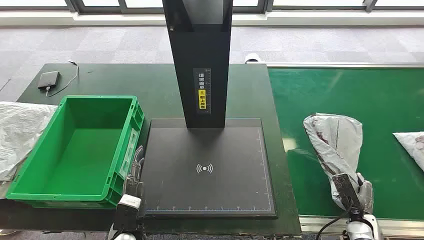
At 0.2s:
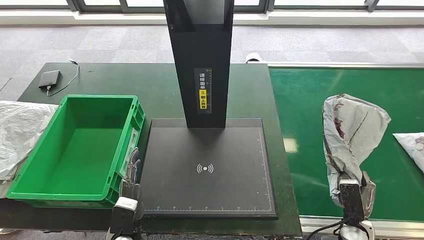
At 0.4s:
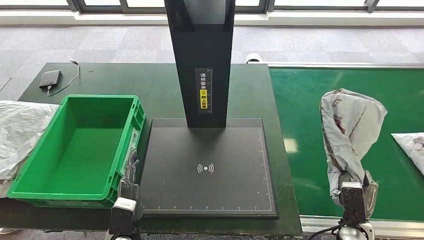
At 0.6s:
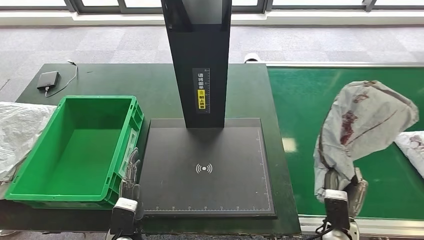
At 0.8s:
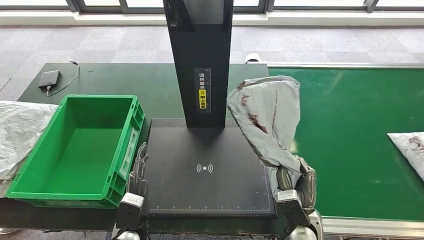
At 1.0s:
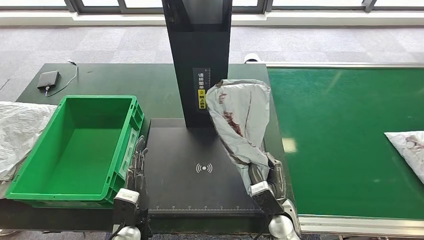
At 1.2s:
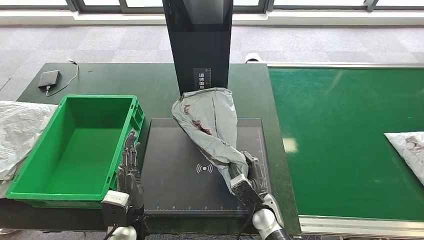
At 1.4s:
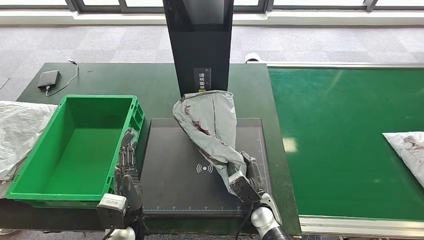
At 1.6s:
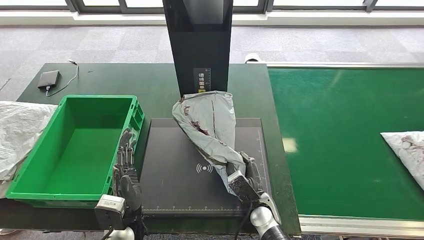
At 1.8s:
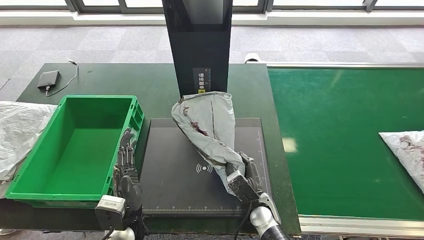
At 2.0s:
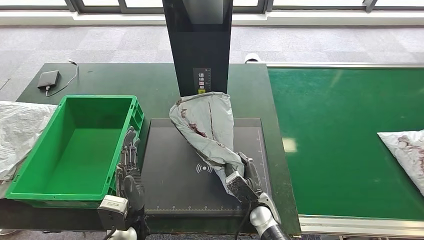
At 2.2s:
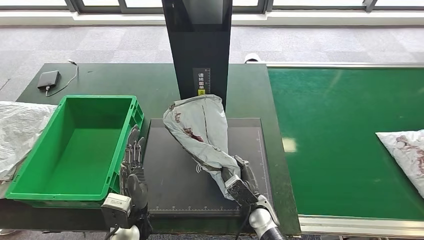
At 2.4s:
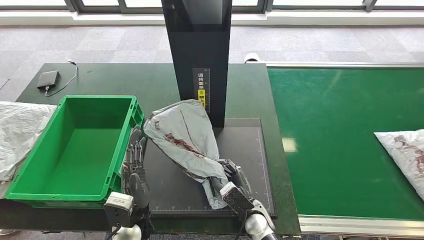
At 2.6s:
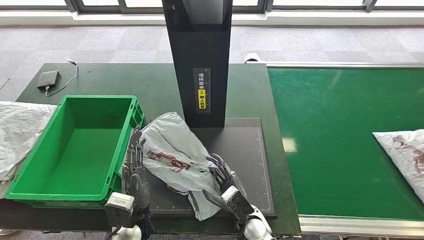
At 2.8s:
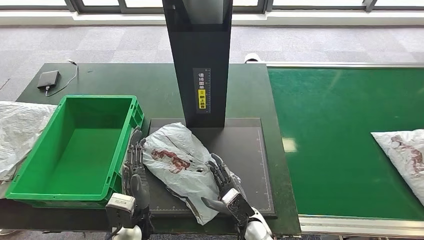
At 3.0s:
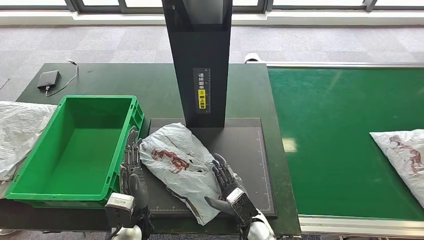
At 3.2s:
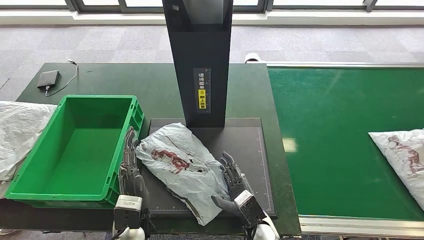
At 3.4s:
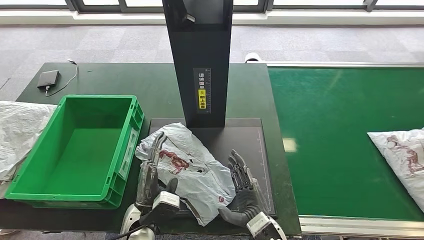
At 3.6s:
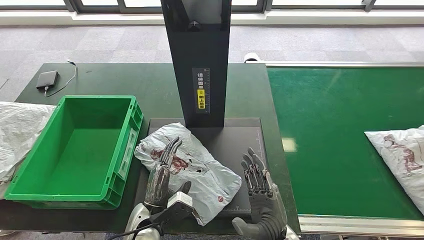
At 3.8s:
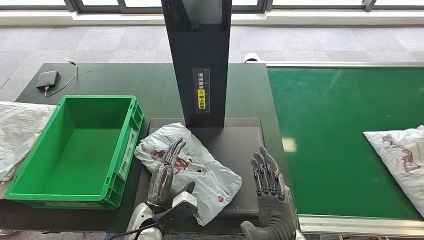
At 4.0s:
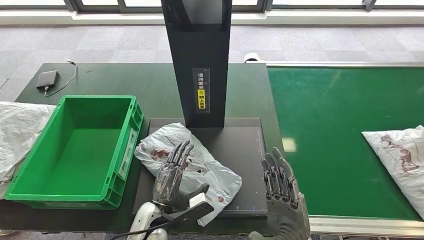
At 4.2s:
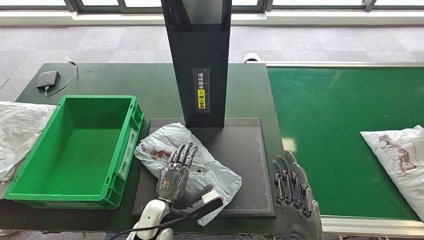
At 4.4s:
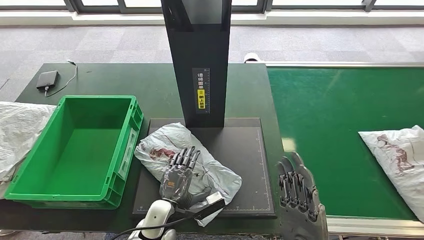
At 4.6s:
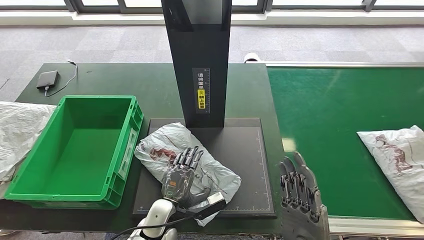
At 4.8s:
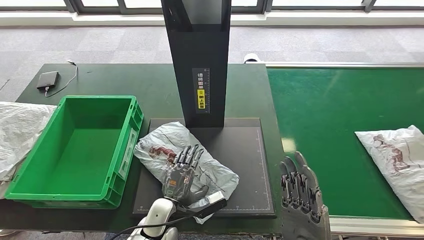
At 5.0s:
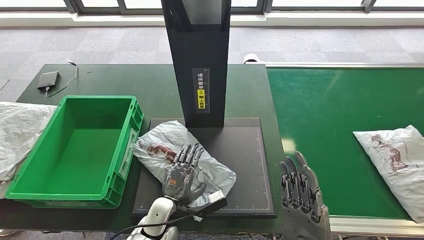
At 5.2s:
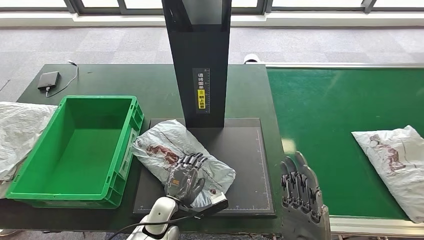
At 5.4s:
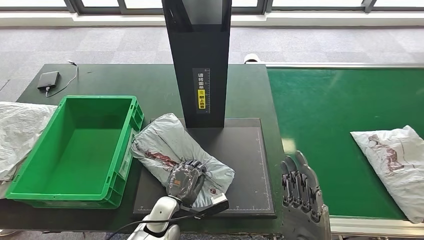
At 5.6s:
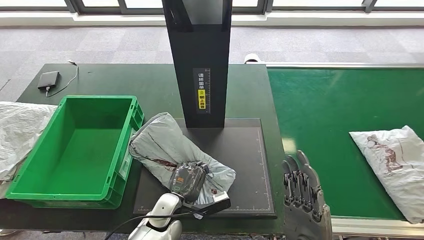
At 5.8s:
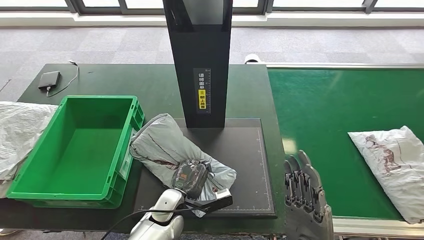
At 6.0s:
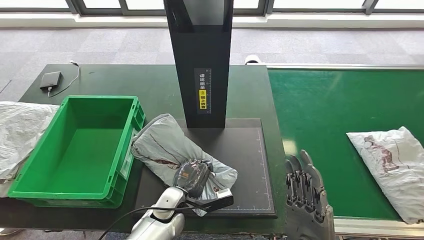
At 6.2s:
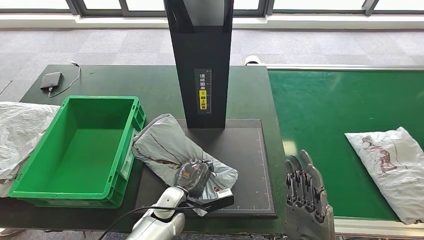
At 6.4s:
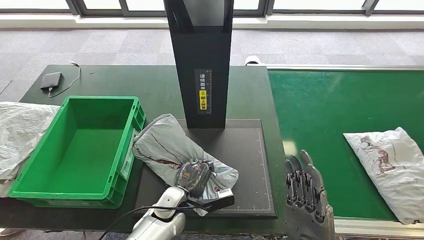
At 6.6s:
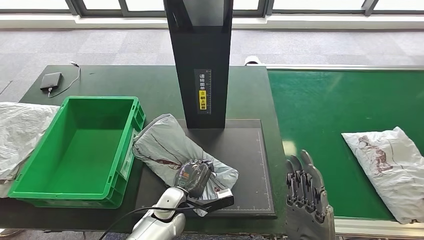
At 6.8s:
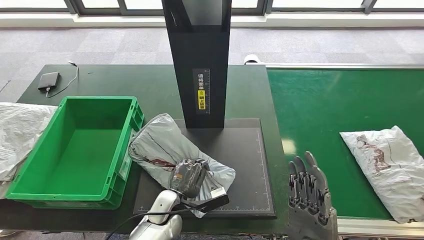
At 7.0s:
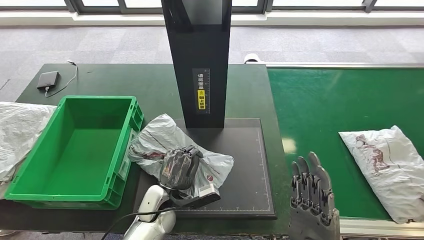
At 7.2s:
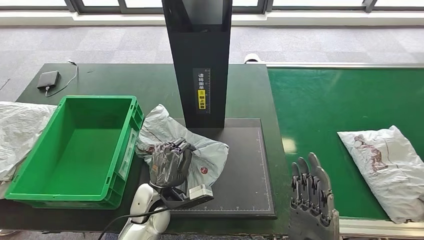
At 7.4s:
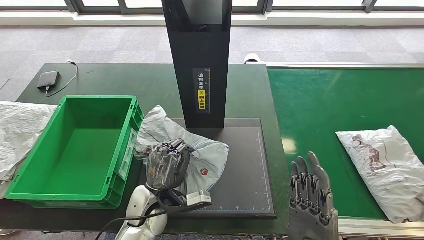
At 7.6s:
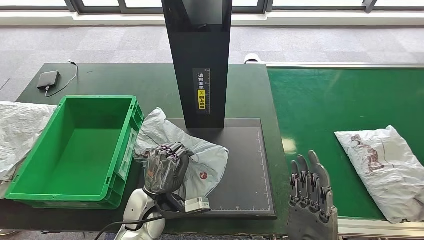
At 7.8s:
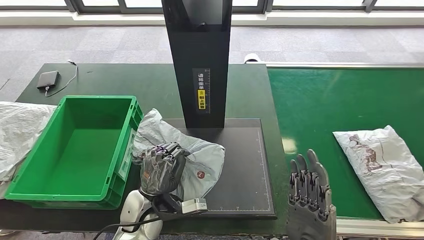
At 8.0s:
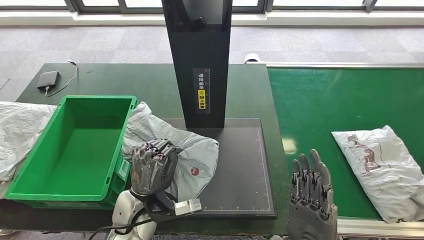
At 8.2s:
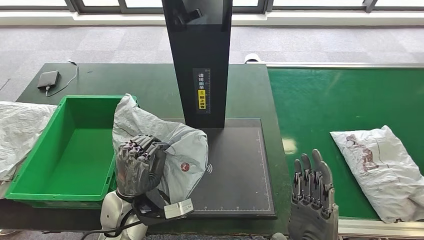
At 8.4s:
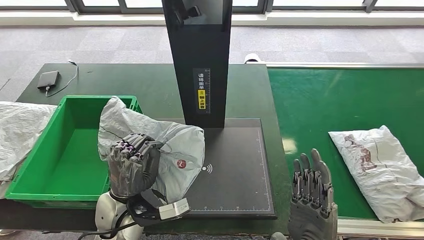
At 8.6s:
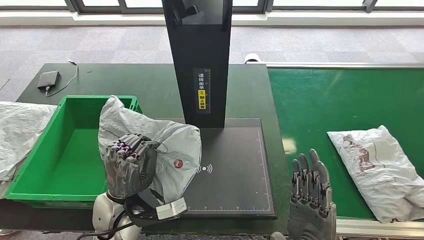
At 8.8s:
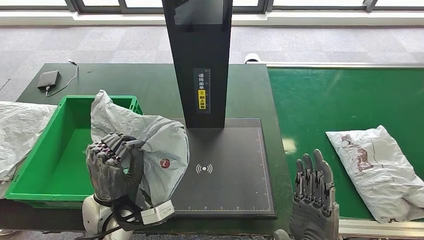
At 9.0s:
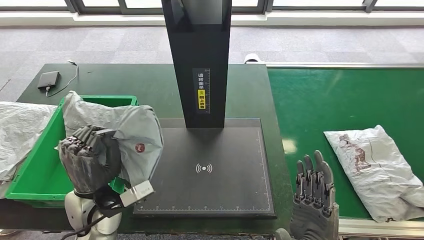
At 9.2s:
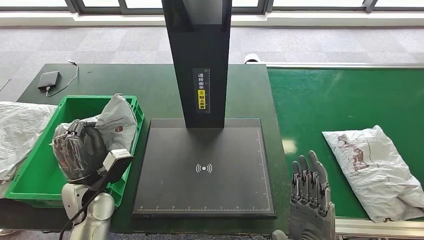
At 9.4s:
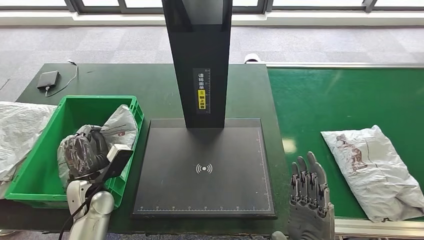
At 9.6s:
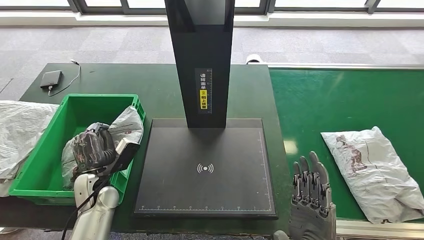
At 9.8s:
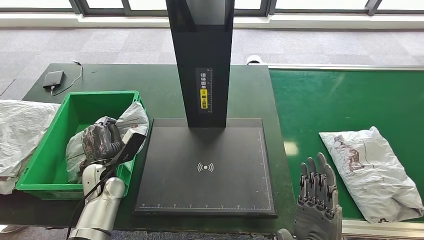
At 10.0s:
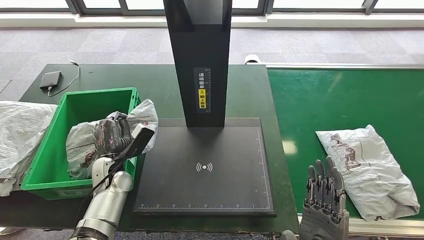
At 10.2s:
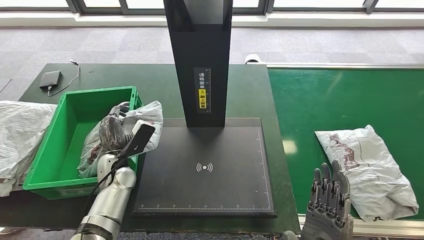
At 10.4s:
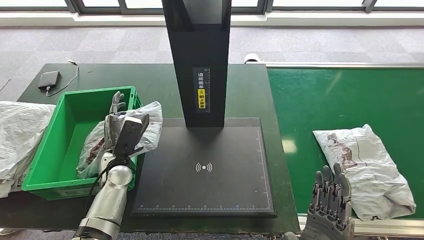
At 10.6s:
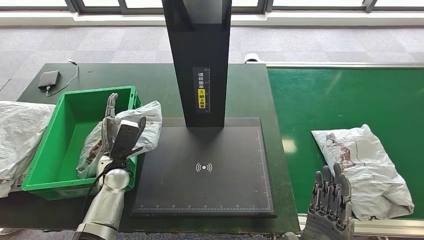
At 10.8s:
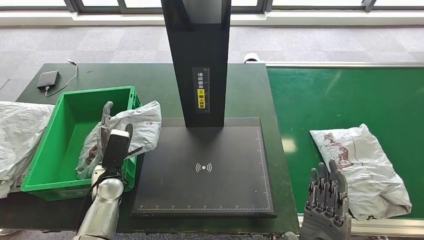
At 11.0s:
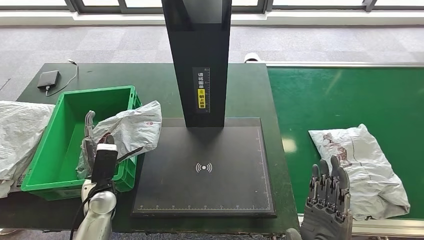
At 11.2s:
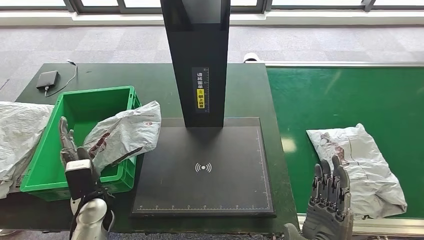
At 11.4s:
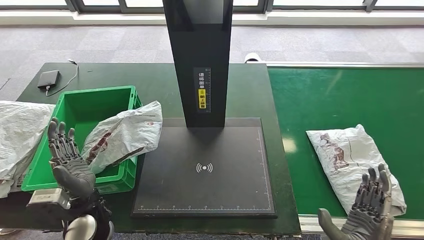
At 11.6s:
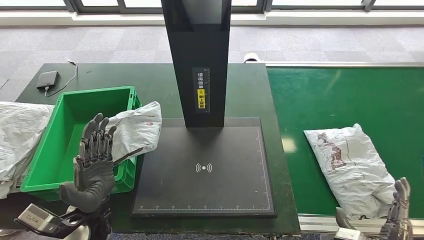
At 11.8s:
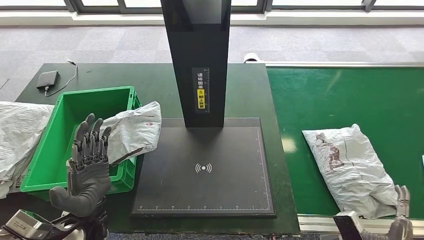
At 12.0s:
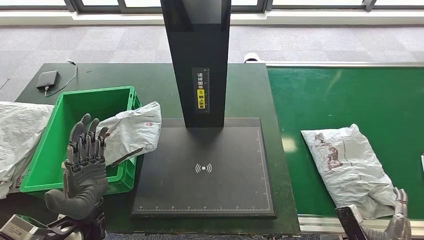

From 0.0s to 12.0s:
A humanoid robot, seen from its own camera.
Step, from 0.0s to 1.4s: Take the parcel off the conveyor belt.
Step, from 1.8s to 4.4s: Place the parcel onto the inbound machine.
Step, from 6.8s to 8.4s: Pick up the parcel from the inbound machine.
Step, from 8.6s to 11.0s: Put the parcel inside the courier box.
From 3.0s to 4.4s: The right hand heads upward, backward and to the right, covering roughly 20 cm. The left hand moves to the right, roughly 5 cm.
From 9.0s to 10.4s: The left hand goes some 10 cm forward and downward.

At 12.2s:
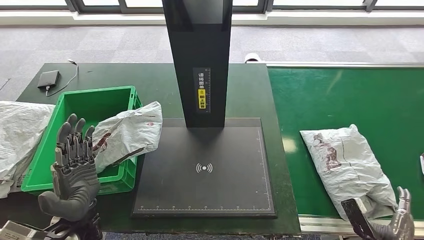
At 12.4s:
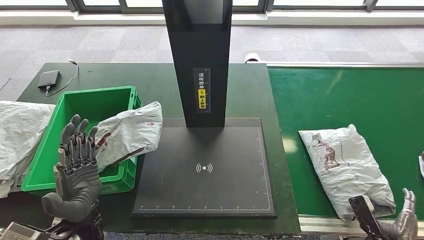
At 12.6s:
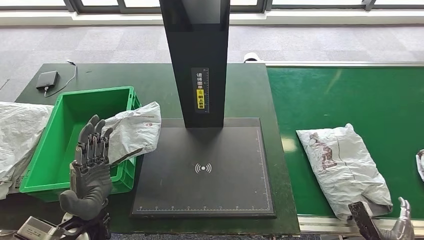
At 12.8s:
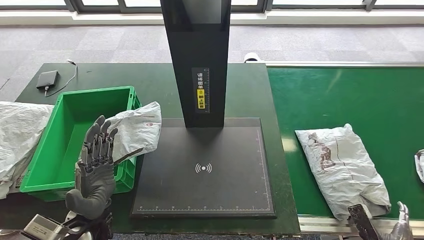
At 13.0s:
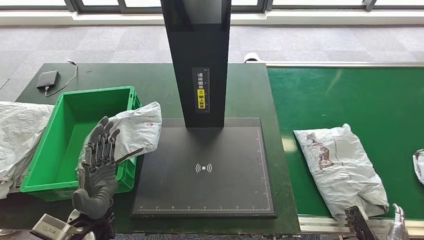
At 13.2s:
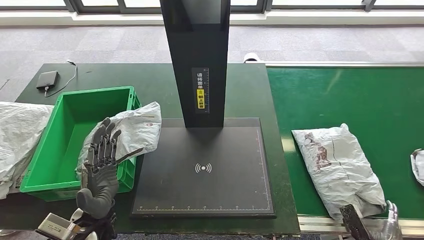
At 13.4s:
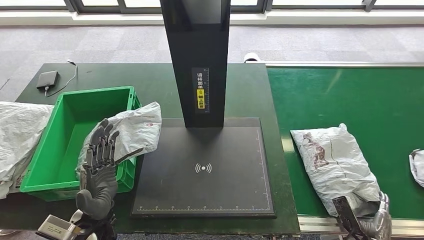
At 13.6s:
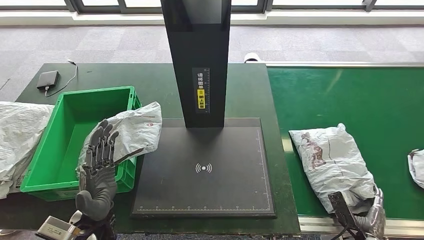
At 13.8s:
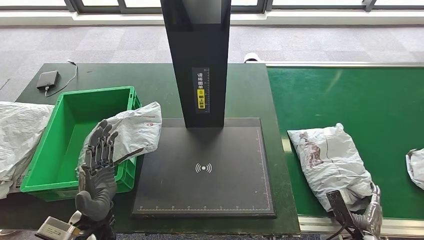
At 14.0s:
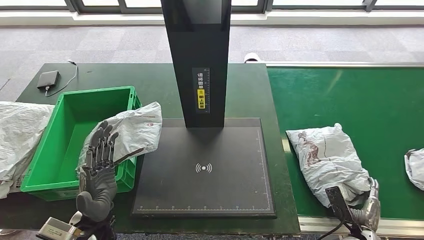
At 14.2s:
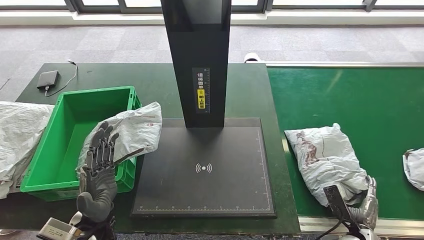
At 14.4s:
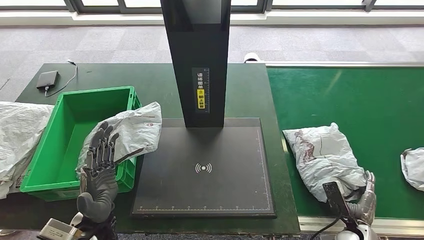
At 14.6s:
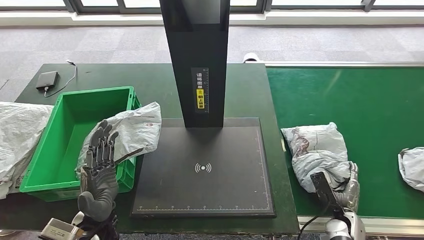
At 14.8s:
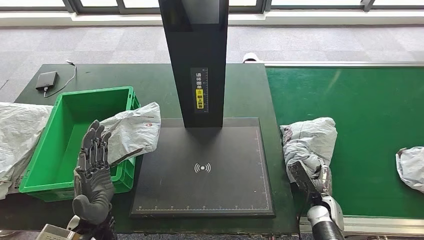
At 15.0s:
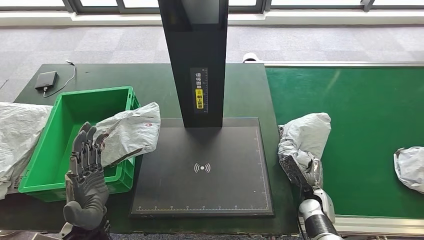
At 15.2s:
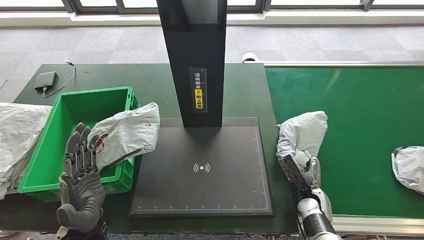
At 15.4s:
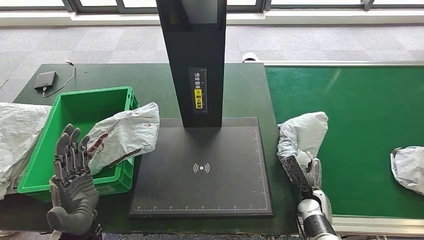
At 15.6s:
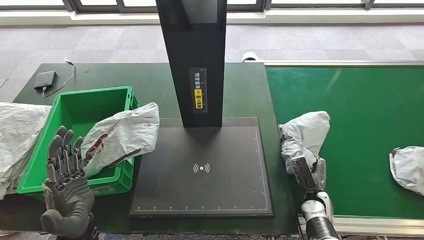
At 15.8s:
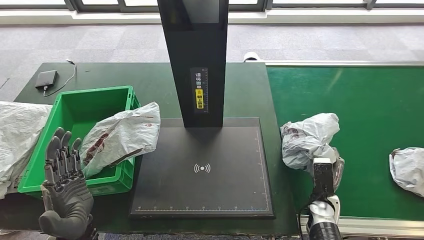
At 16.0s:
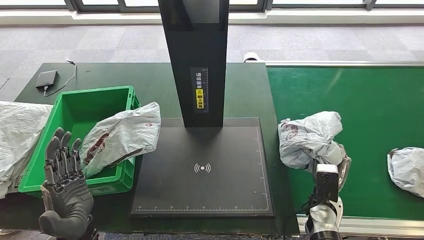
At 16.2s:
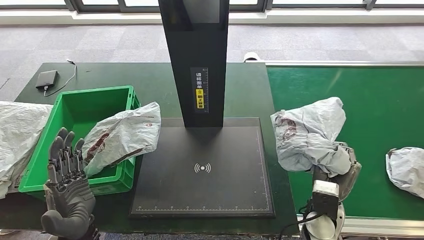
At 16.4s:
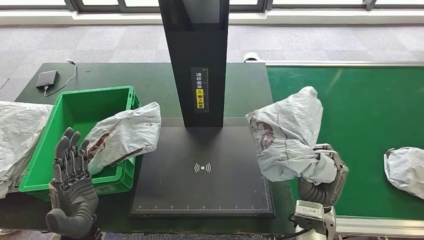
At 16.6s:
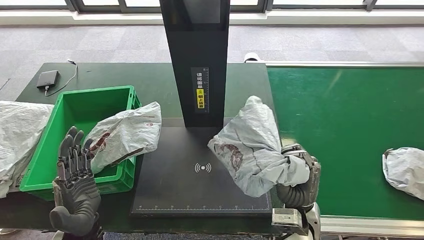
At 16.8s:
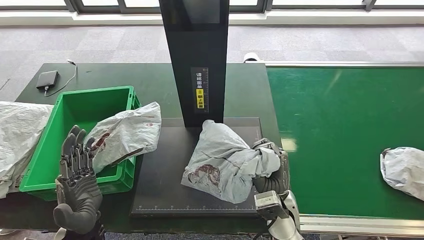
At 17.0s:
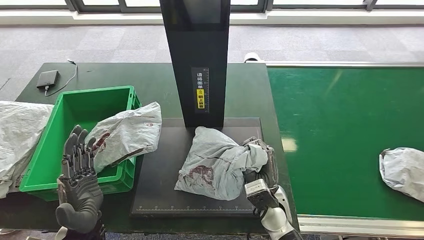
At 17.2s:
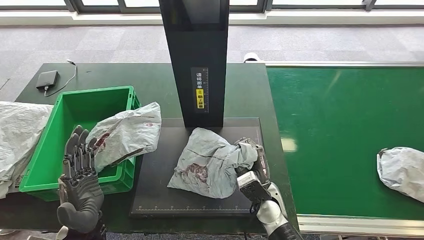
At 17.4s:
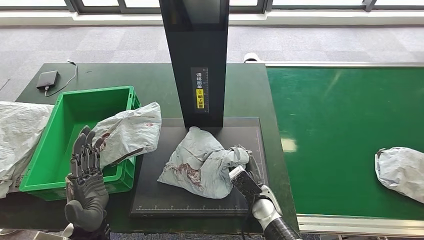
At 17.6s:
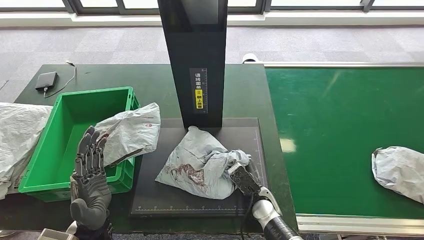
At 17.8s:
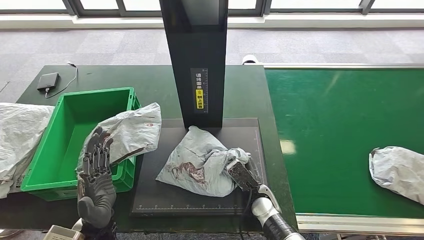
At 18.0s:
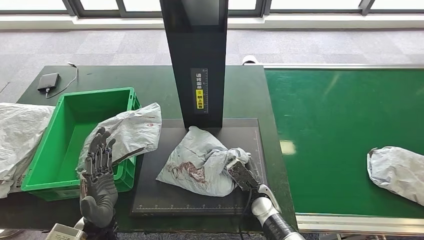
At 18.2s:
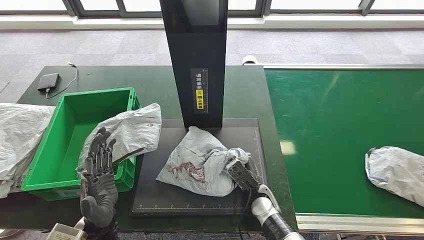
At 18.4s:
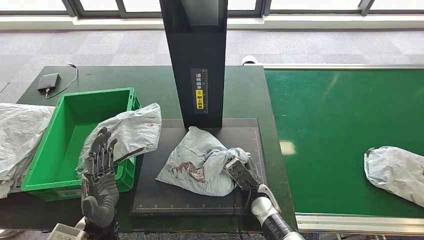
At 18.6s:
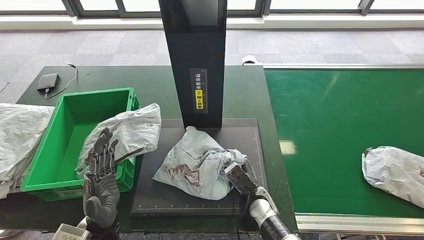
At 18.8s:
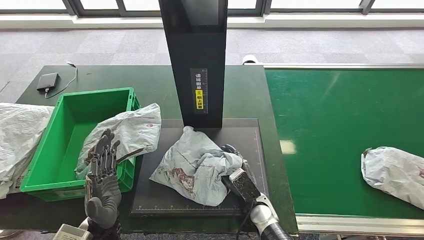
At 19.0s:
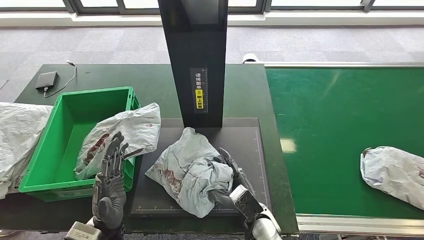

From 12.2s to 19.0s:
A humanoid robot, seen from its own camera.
Step, from 15.4s to 16.4s: Pick up the parcel from the conveyor belt.
Step, from 16.6s to 18.8s: Place the parcel onto the inbound machine.
From 12.2s to 13.6s: The right hand goes roughly 5 cm downward.
From 13.6s to 15.0s: The right hand heads to the left and forward, covering roughly 15 cm.
From 15.0s to 16.2s: The right hand goes roughly 10 cm upward.
From 17.6s to 19.0s: The right hand ends up roughly 5 cm from where it was.
